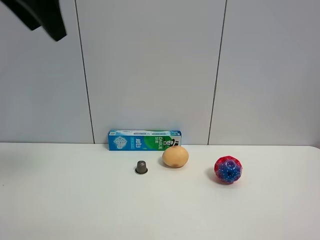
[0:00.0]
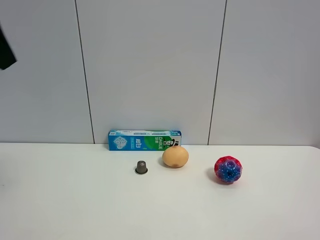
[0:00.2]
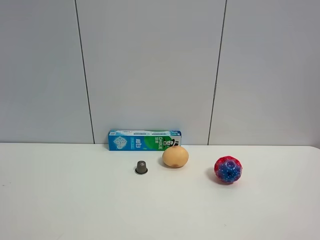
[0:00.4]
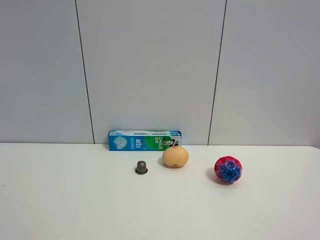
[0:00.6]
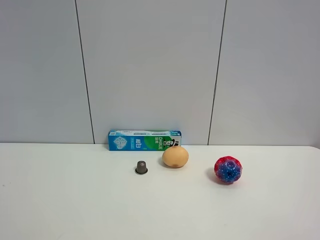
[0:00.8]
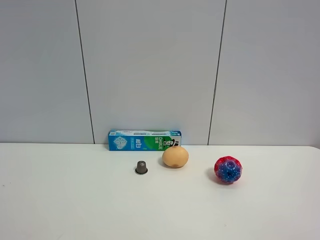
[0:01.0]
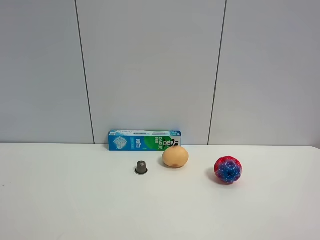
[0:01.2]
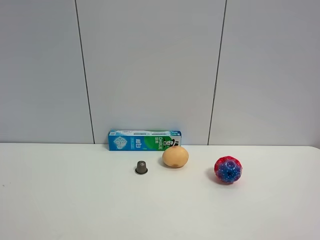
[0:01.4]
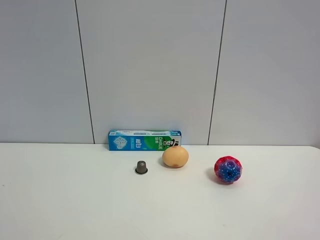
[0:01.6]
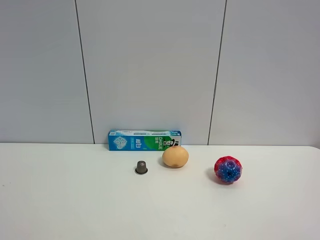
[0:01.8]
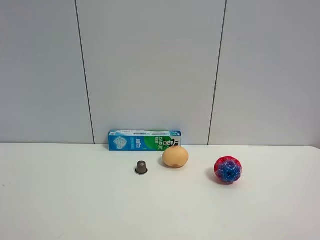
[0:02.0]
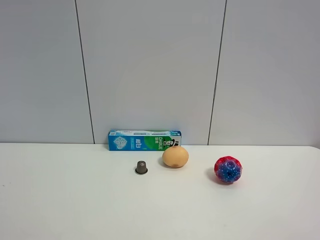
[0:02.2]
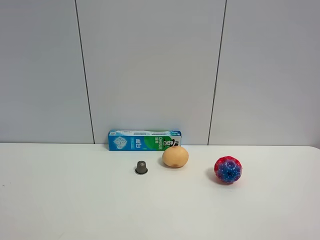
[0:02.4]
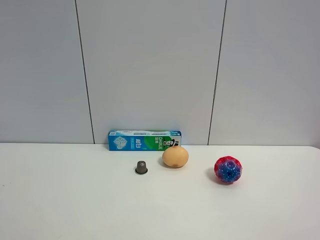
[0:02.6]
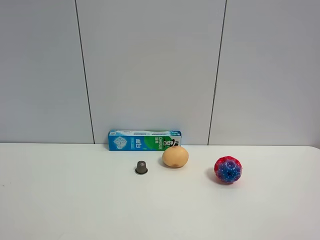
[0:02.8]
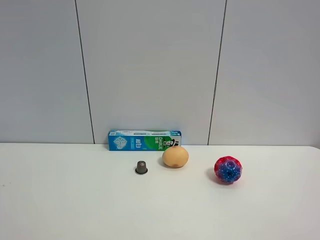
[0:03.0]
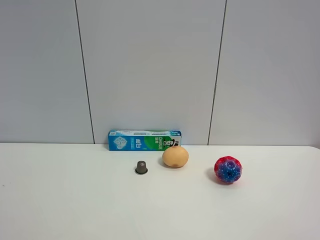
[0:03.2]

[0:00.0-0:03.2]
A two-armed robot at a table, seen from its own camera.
Task of the whole recording: the gripper move the object.
0:00.0 to 0:01.6: The left gripper heads backward and downward, covering approximately 30 cm.

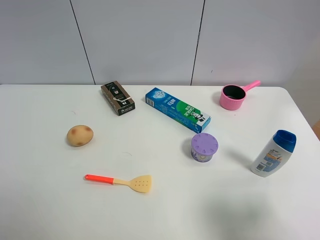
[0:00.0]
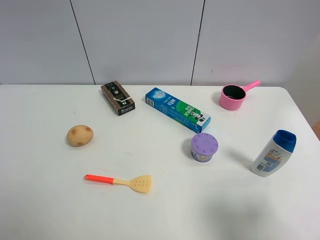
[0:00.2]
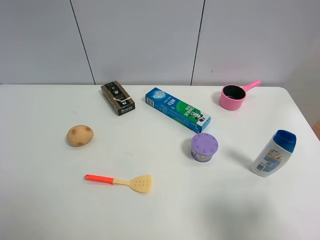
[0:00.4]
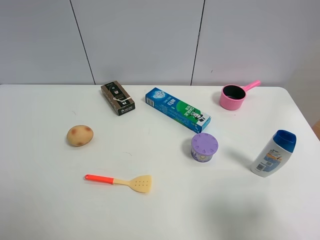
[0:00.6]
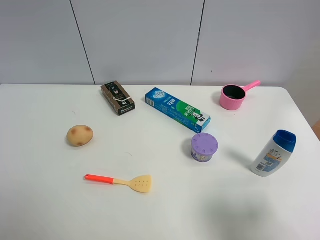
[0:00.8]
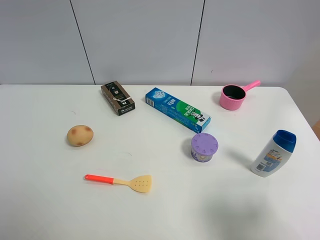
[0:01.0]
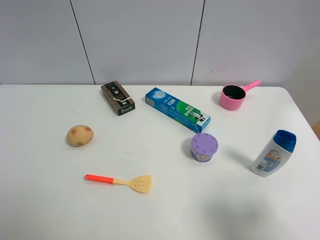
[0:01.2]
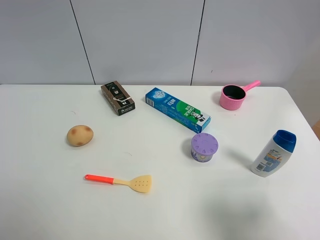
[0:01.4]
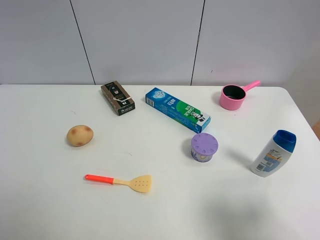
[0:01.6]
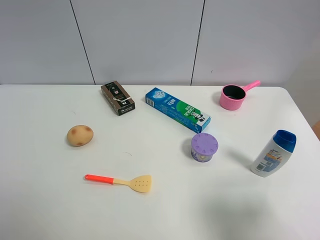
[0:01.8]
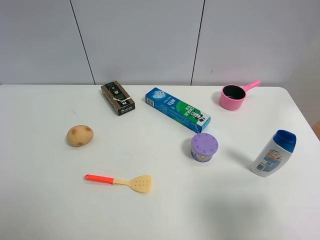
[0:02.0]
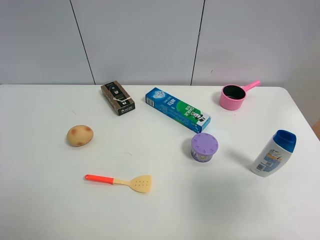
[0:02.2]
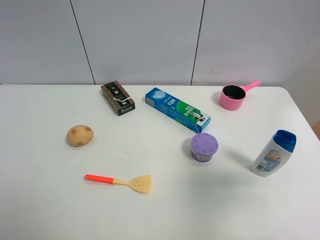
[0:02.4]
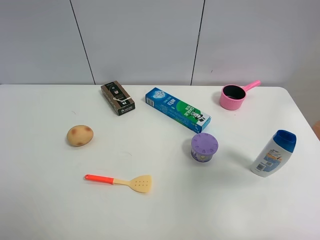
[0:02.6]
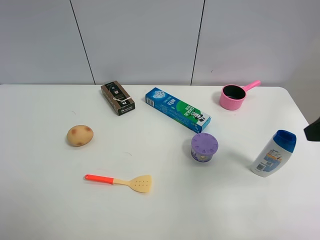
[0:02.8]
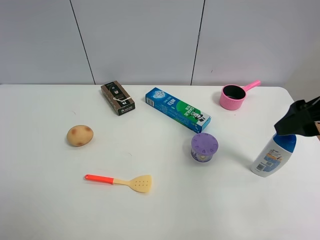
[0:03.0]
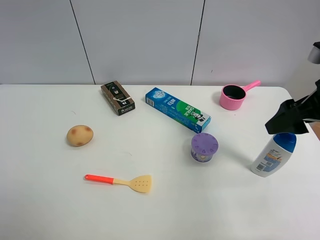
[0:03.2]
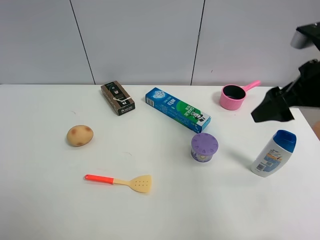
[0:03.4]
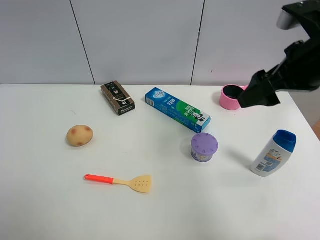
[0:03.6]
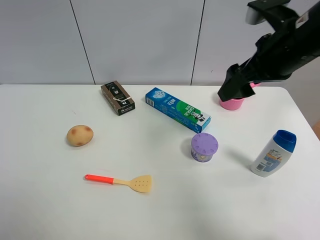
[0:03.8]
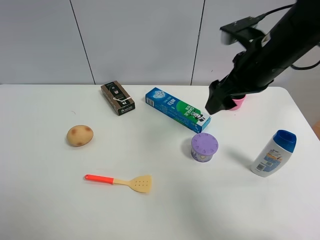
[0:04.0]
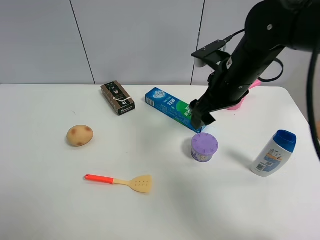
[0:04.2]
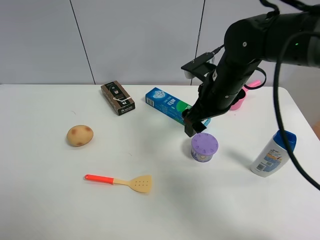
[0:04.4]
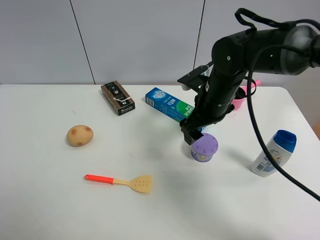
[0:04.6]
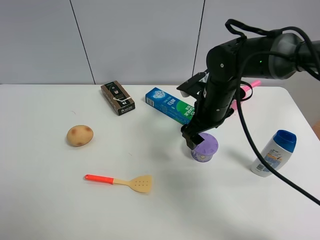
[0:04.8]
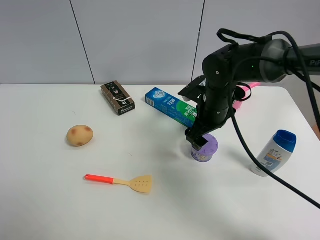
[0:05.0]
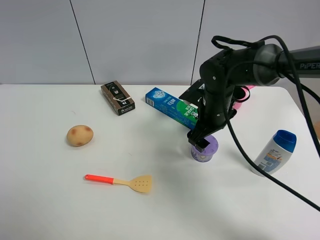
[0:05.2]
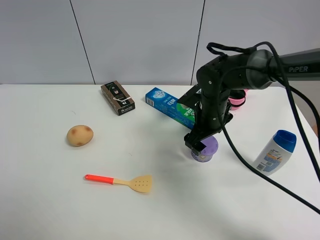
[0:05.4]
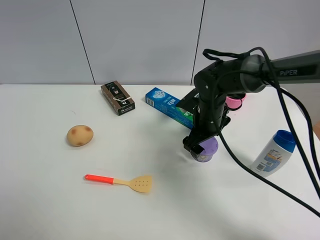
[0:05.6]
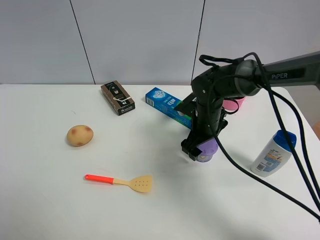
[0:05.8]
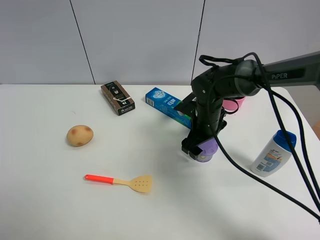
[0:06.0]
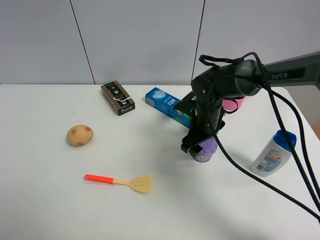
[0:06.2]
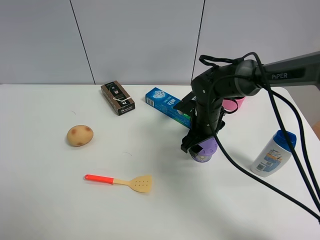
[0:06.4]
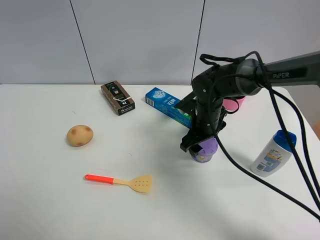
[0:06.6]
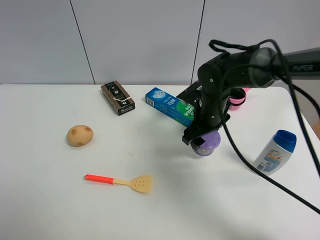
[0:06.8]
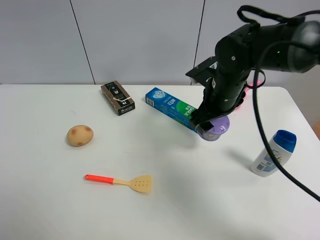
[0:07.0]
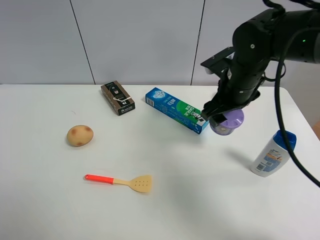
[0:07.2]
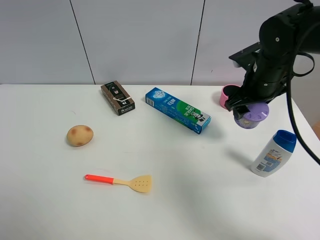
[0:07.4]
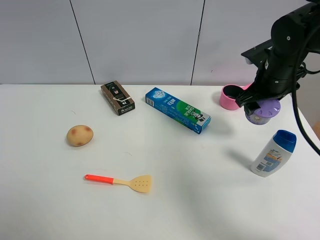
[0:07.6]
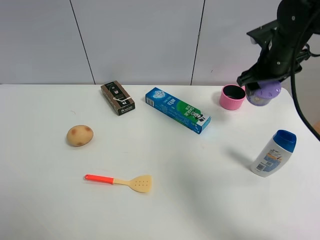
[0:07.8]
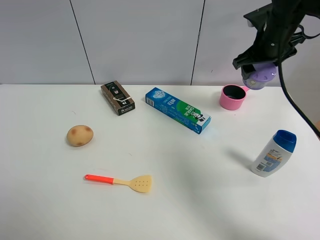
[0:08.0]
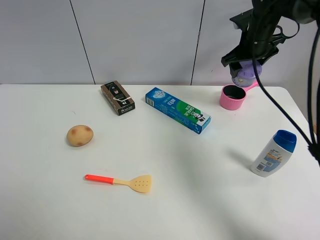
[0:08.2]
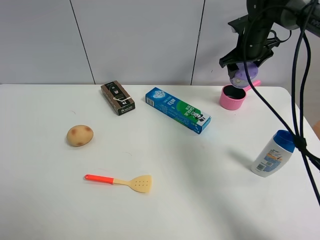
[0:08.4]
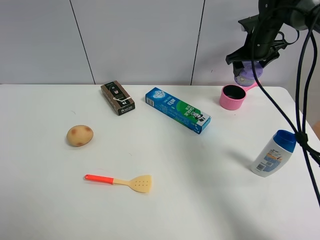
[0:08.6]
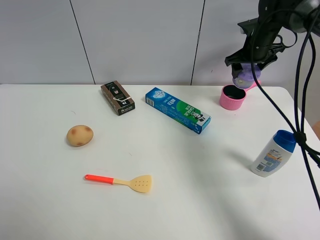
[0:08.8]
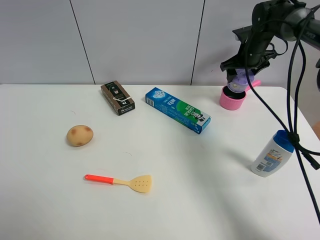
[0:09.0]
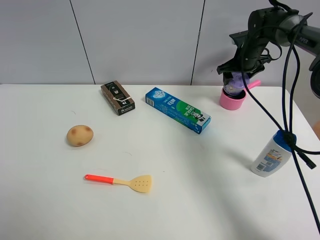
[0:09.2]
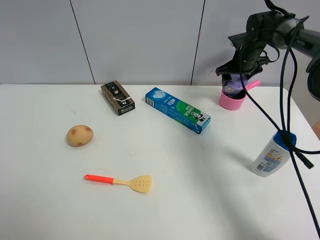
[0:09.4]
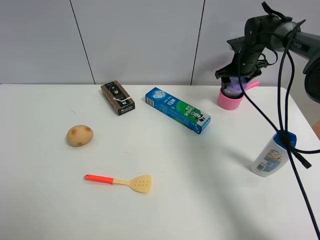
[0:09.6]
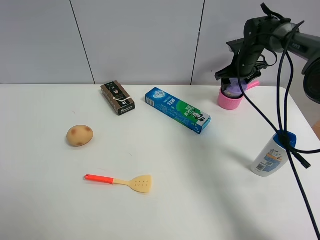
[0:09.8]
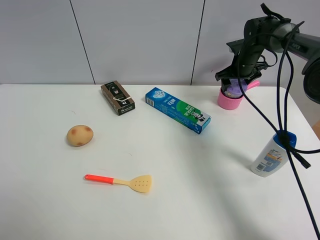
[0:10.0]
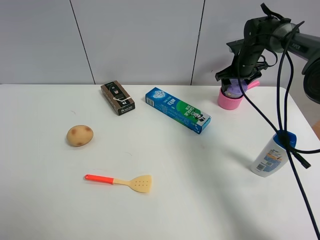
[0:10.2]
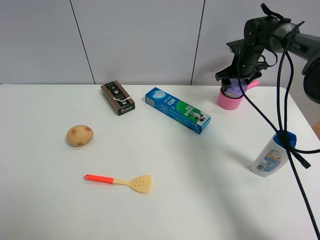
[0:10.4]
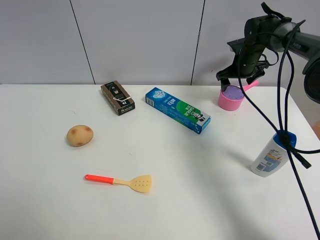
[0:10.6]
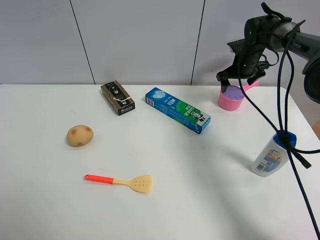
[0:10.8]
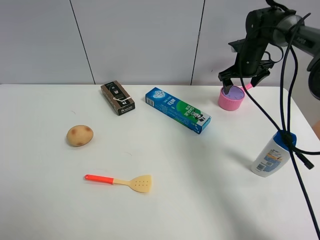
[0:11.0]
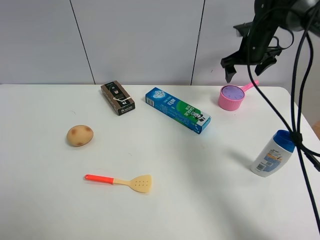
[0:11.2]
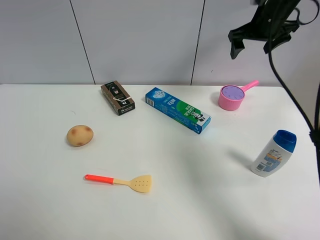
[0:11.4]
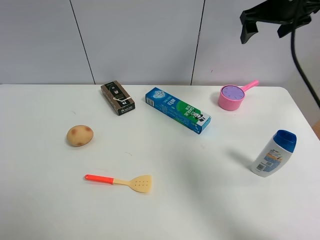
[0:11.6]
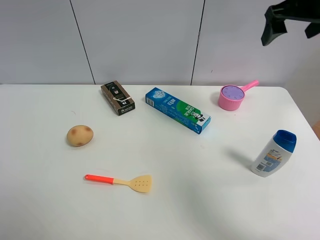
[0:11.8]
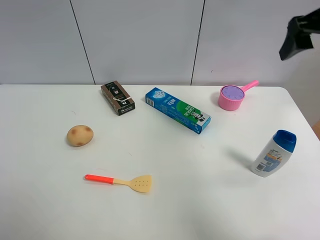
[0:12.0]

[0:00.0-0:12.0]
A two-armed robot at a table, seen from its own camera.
Task of the whole recording: the gripper move the object.
Step, 0:00.0 to 0:06.2: Grasp the Incense box with the right gripper.
Step, 0:06.4 to 0:11.2: Place the Incense box into the pink pot with the right gripper.
0:00.0 to 0:01.6: Both grippers stay put.
0:01.6 to 0:03.0: The right gripper travels forward by approximately 20 cm.
0:03.0 to 0:04.4: The right gripper moves to the left, forward and downward, some 20 cm.
0:04.4 to 0:06.0: The right gripper heads downward, covering some 10 cm, and closes.
0:06.0 to 0:07.6: The right gripper moves to the right and upward, some 20 cm.
0:07.6 to 0:09.0: The right gripper moves forward, approximately 15 cm.
0:09.0 to 0:10.4: There are only small adjustments of the grippers.
0:10.4 to 0:12.0: The right gripper goes roughly 35 cm backward and upward, and opens.

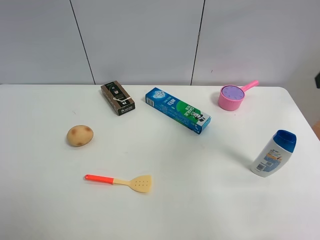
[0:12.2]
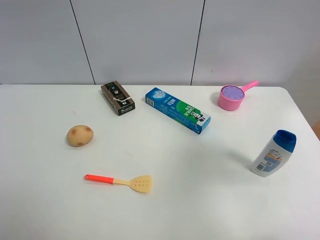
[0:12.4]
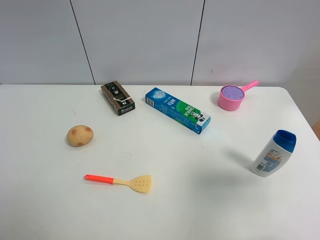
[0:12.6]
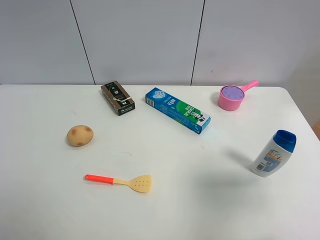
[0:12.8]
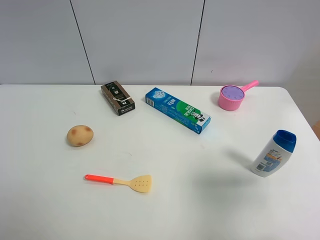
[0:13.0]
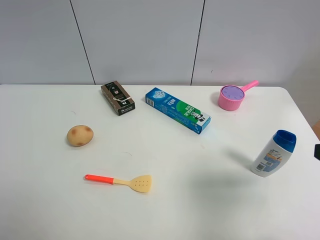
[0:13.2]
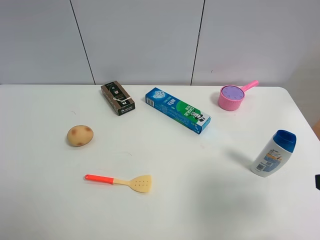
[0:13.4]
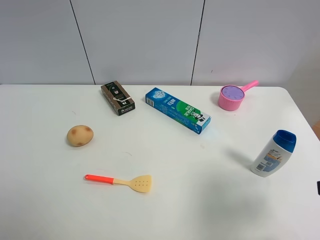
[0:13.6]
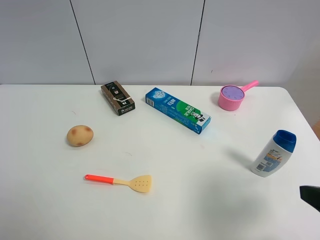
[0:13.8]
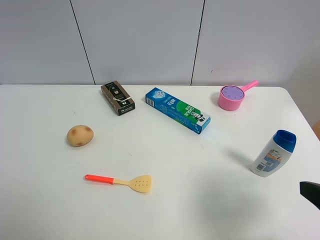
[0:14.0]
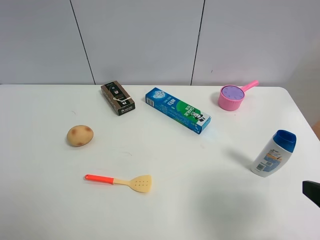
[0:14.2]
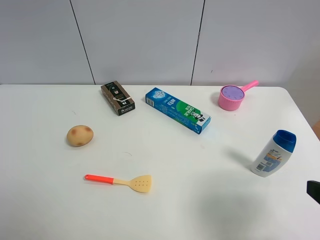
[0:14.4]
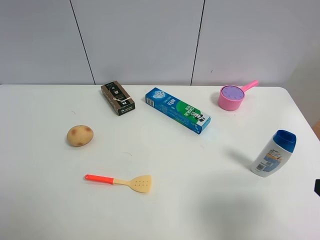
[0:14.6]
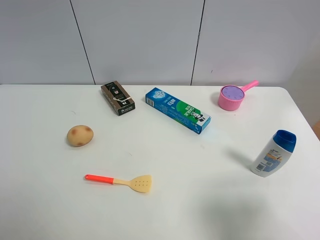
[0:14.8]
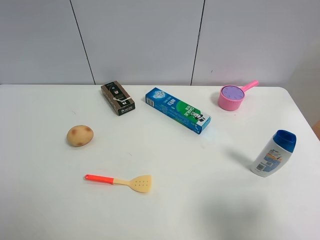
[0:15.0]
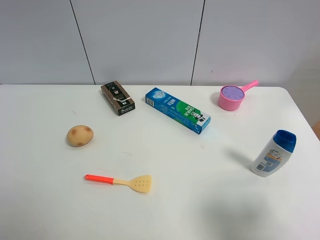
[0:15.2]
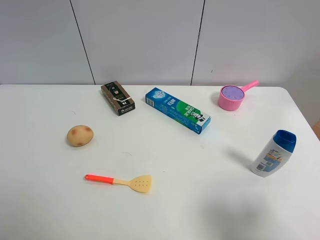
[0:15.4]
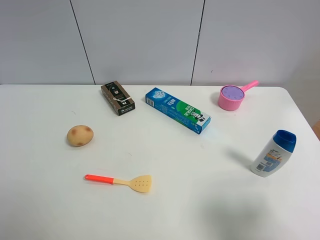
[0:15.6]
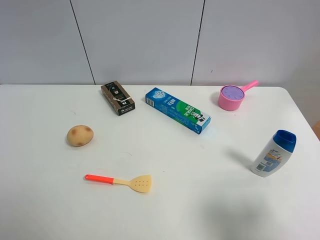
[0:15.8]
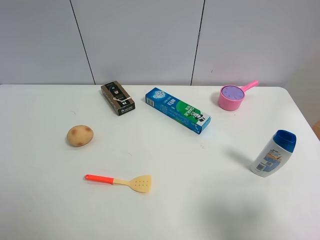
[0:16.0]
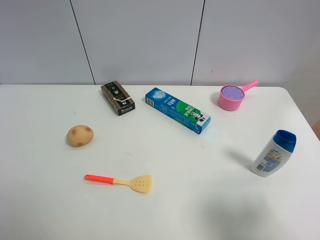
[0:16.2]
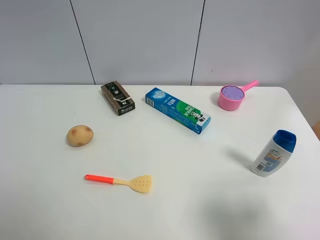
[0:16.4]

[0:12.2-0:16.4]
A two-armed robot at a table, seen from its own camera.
Task of the whole recording: the gripper move the object.
0:12.2 to 0:13.6: The right gripper is displaced backward and downward by about 15 cm.
0:15.0 to 0:16.4: The two grippers keep their place.

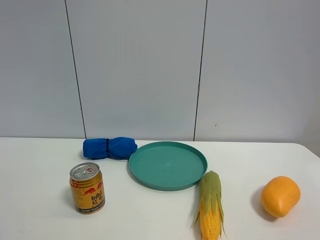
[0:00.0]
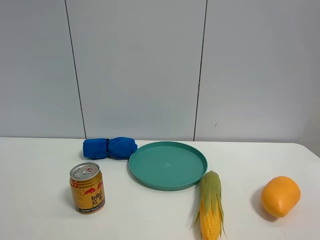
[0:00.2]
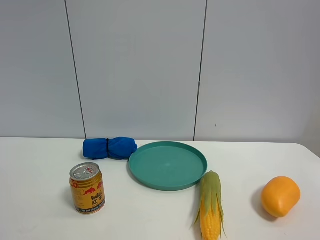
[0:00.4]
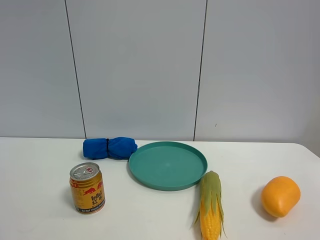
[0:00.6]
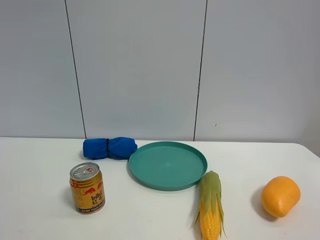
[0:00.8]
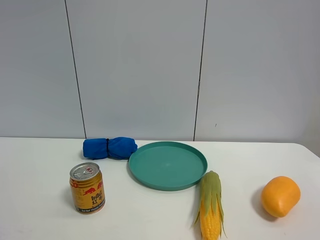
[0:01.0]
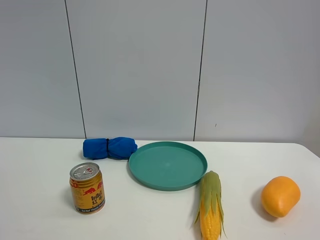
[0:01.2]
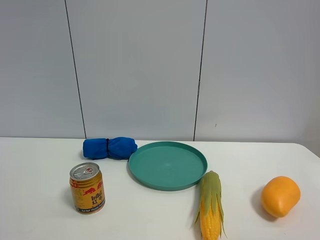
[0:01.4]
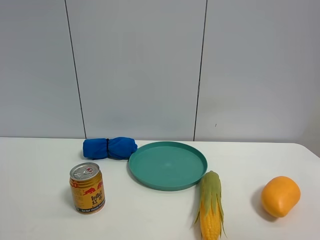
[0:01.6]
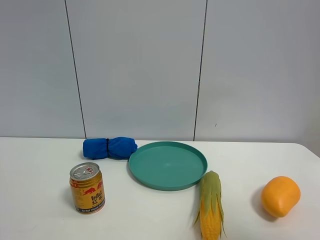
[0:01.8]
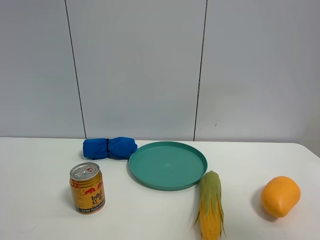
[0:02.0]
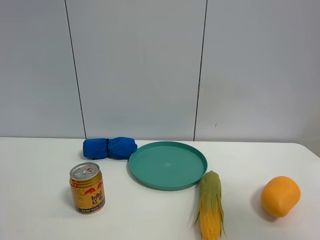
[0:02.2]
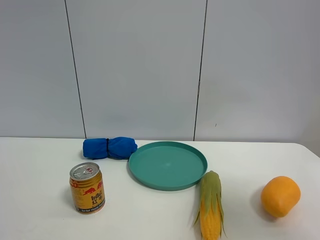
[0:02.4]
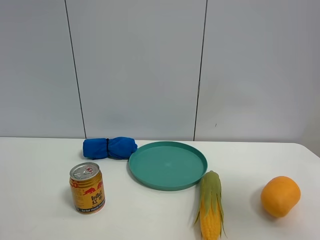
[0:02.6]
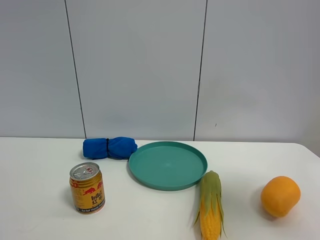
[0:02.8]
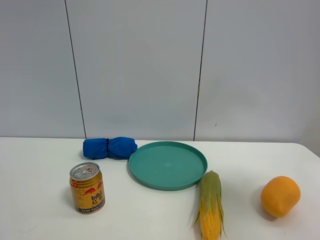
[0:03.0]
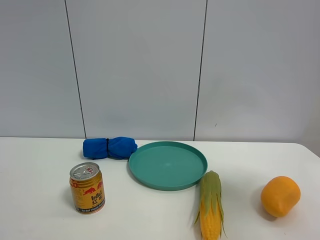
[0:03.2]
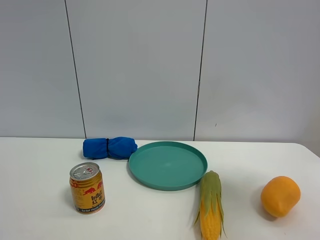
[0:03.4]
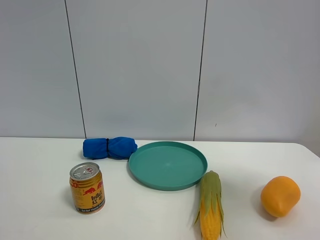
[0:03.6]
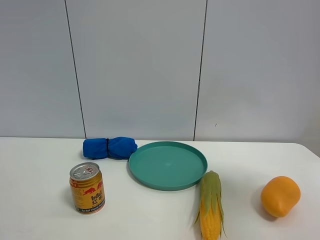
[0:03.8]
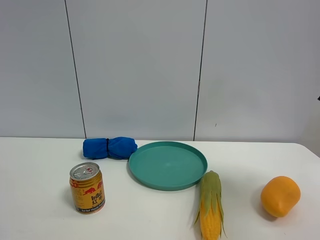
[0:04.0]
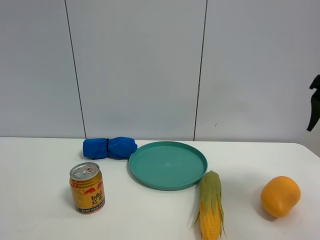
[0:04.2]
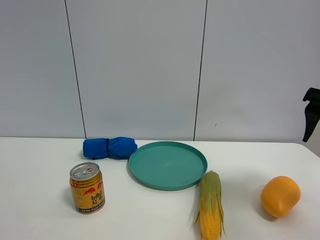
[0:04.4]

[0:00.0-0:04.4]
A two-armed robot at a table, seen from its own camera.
Task of the whole recording: the gripper move the object.
0:01.4 to 0:03.0: The right gripper is displaced forward by about 20 cm.
0:03.0 to 0:04.4: The right gripper goes about 5 cm downward.